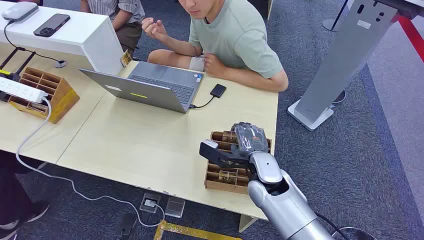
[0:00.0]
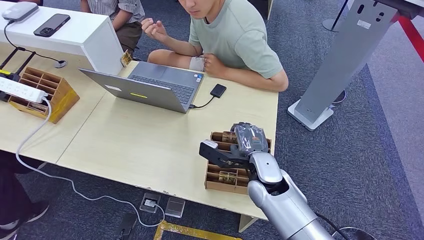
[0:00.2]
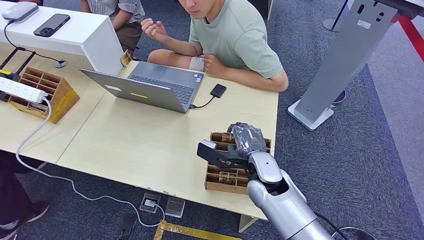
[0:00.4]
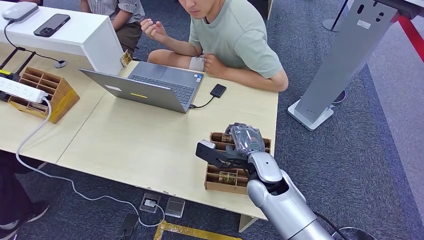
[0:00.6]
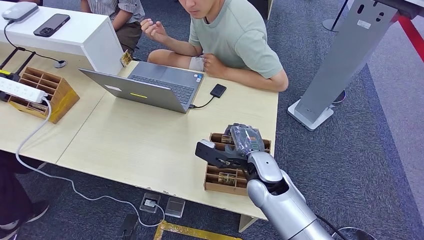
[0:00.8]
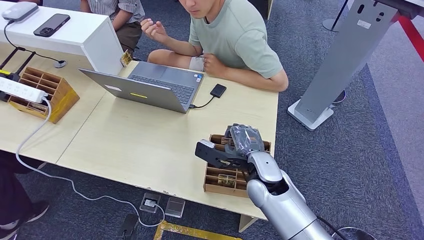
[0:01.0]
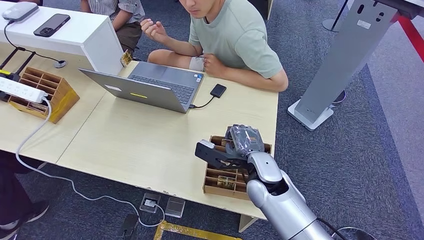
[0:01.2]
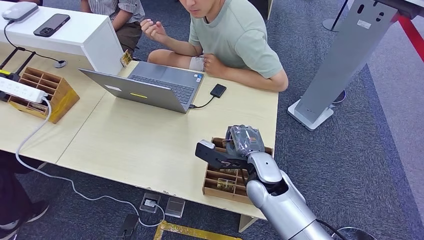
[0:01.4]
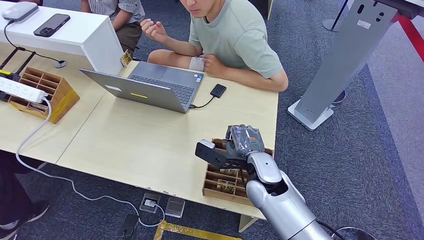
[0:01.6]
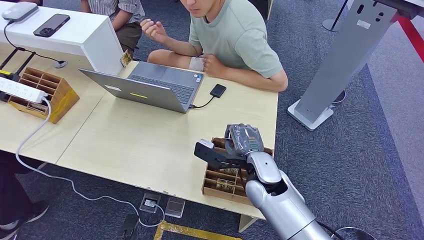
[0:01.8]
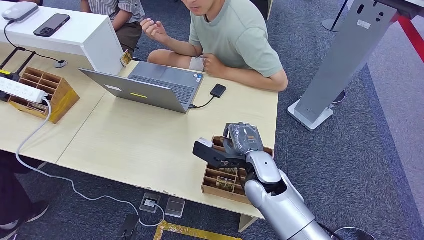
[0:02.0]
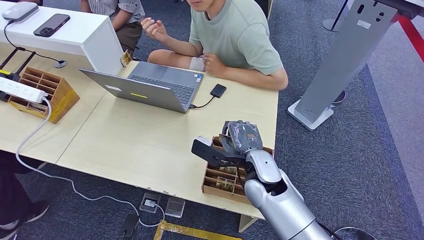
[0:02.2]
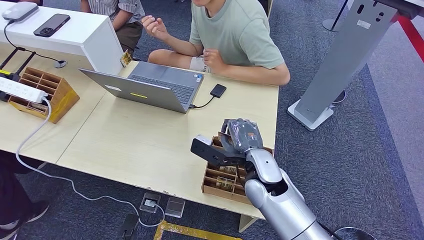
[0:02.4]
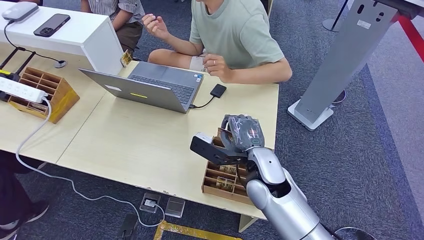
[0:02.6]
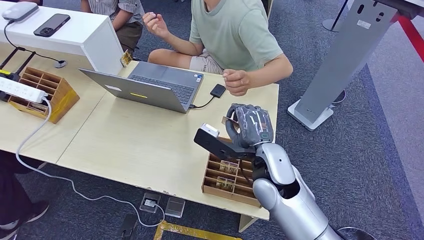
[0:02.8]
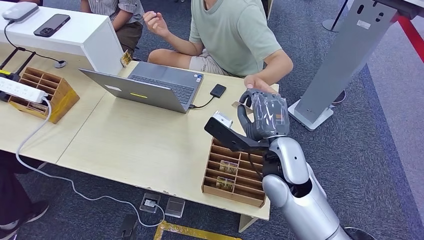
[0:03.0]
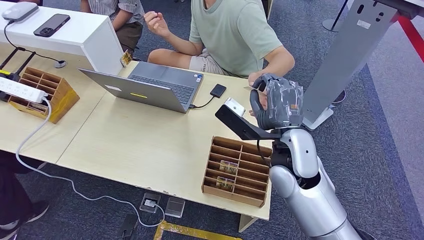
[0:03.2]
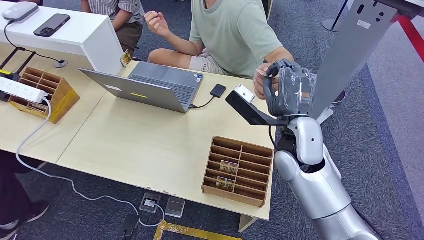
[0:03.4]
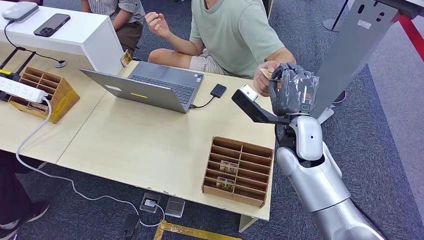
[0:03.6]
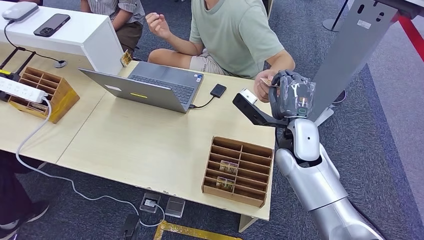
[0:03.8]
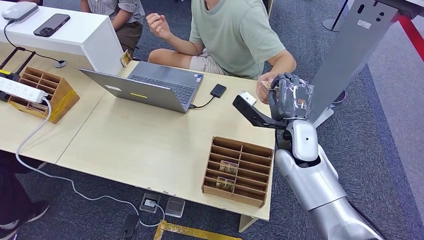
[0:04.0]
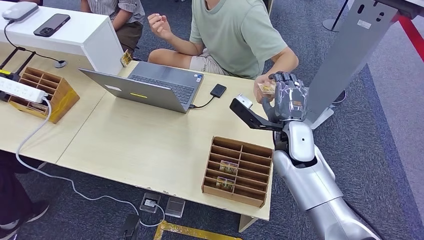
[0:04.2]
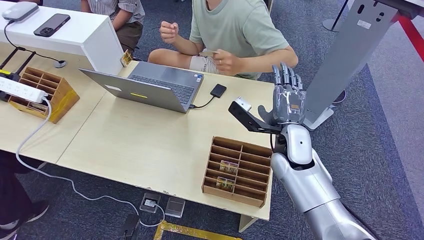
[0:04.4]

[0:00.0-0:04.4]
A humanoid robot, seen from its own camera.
Step, 0:00.0 to 0:02.2: Pick up the room card from the card holder.
Step, 0:03.0 to 0:04.4: Hand the room card to the target.
0:01.4 to 0:03.0: The right hand is displaced upward by some 10 cm.
0:03.0 to 0:04.4: The right hand heads forward, covering approximately 5 cm.
